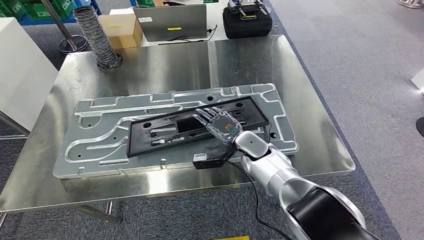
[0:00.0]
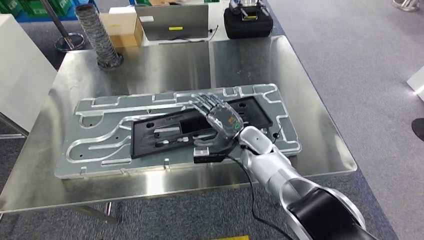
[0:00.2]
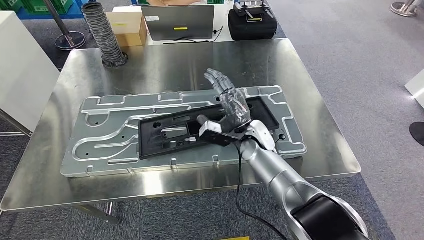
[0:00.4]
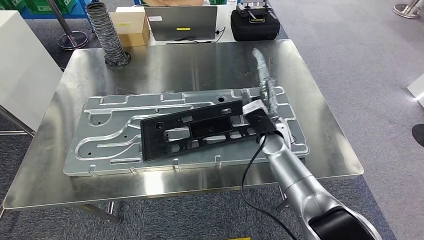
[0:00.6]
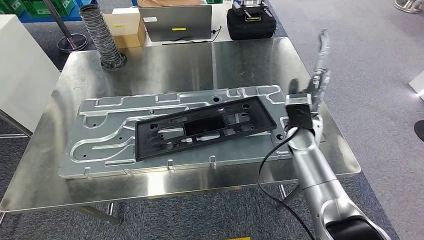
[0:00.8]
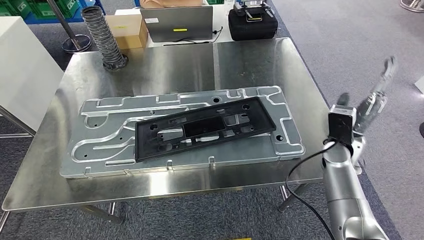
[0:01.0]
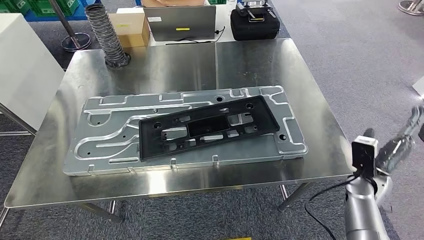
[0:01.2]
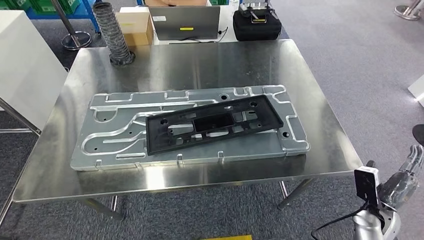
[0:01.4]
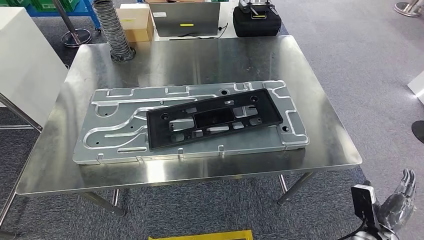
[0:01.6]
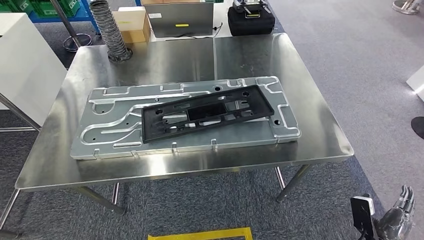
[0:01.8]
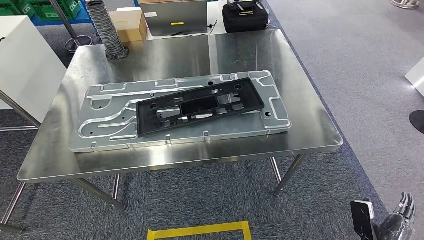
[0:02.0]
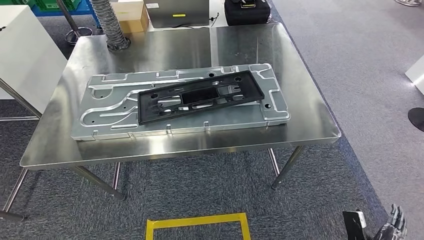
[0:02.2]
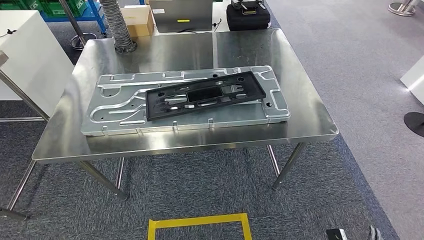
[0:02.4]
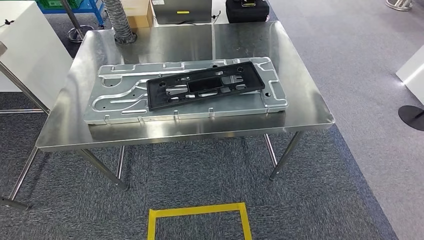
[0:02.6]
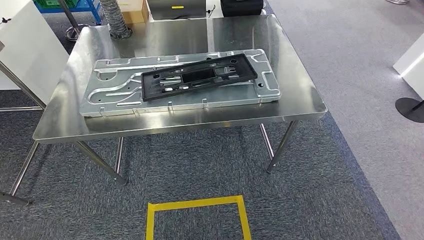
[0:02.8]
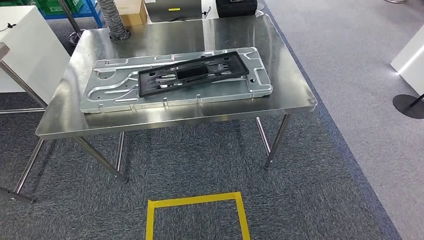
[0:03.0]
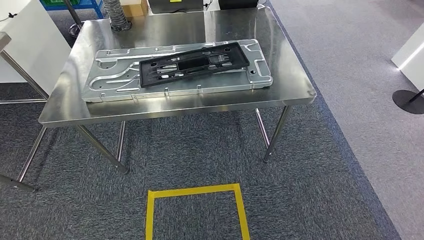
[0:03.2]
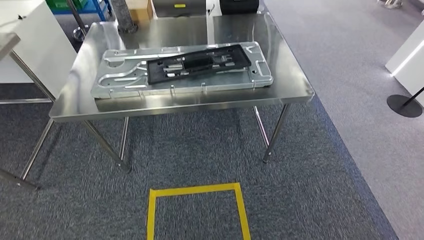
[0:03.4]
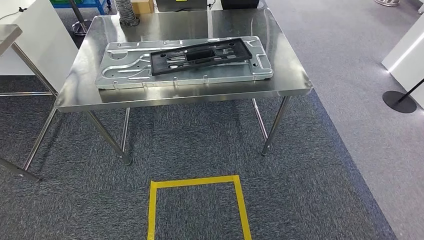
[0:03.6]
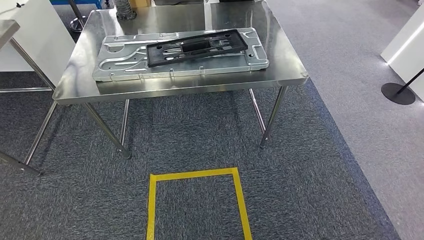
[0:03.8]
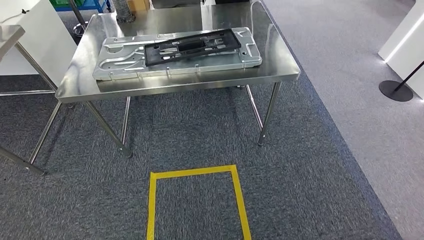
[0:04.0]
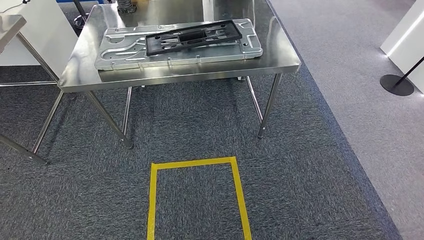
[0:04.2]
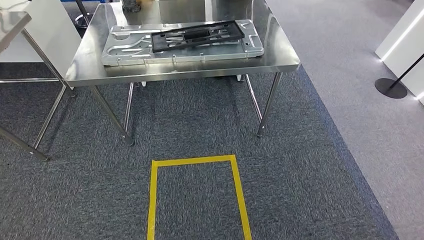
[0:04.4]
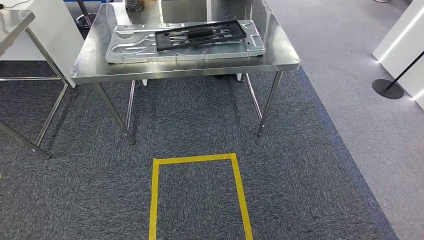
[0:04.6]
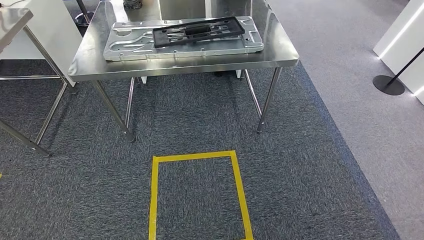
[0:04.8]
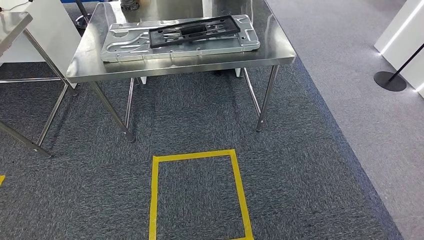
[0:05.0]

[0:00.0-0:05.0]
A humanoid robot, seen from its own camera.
Step, 0:02.4 to 0:05.0: Move to the initial position of the shelf.
